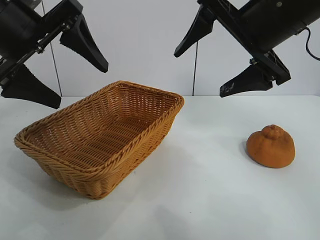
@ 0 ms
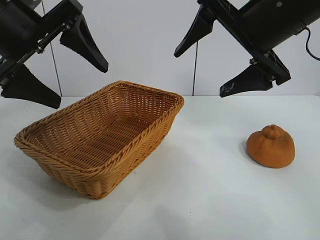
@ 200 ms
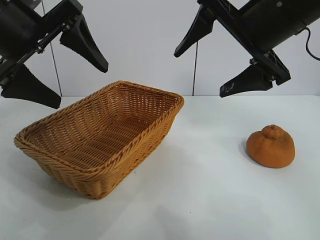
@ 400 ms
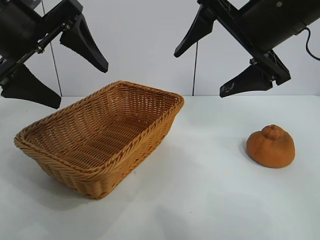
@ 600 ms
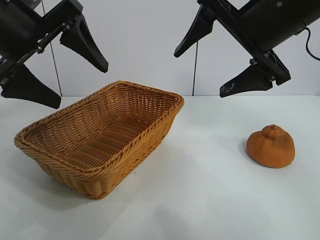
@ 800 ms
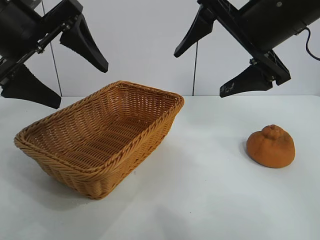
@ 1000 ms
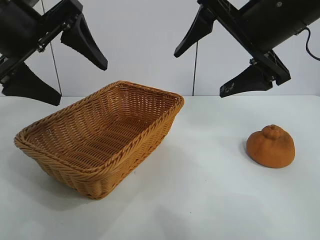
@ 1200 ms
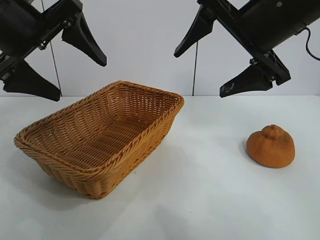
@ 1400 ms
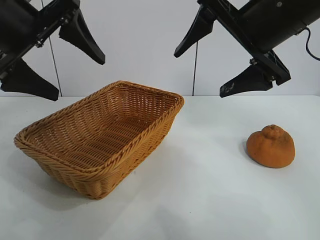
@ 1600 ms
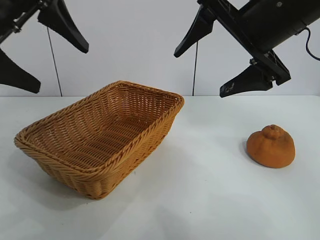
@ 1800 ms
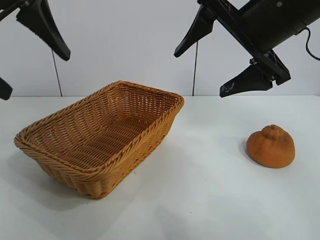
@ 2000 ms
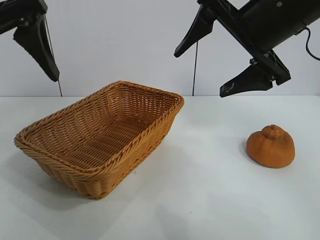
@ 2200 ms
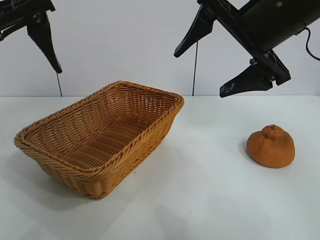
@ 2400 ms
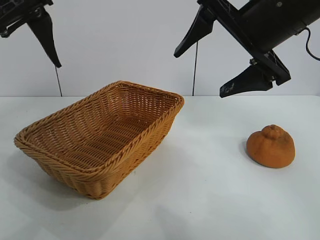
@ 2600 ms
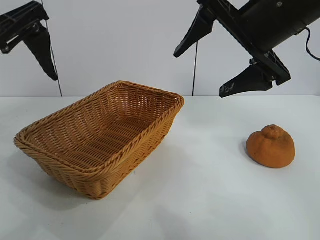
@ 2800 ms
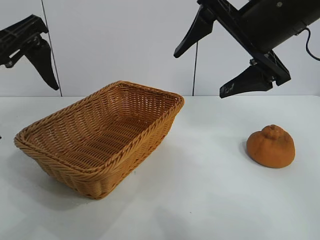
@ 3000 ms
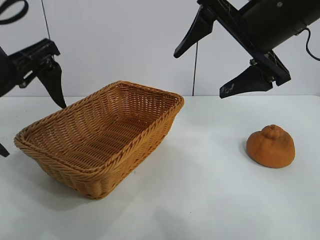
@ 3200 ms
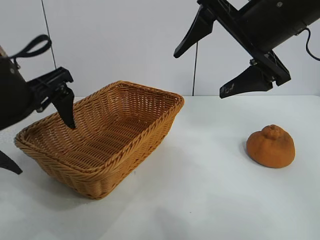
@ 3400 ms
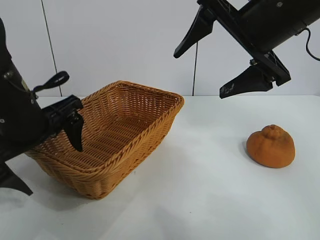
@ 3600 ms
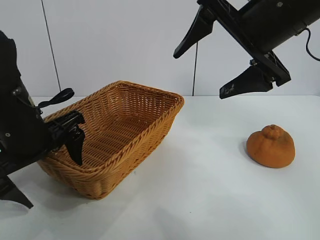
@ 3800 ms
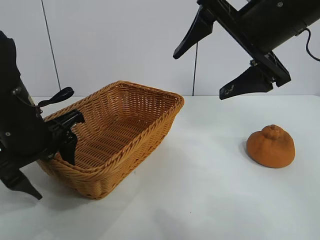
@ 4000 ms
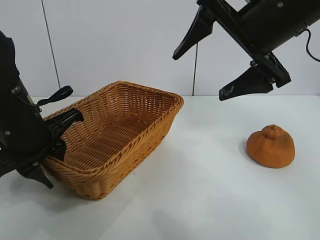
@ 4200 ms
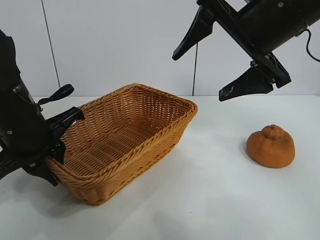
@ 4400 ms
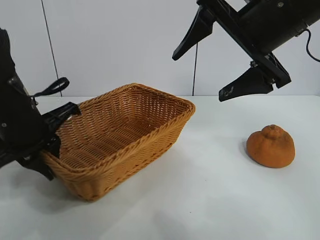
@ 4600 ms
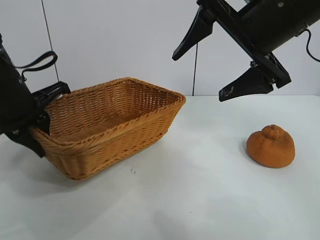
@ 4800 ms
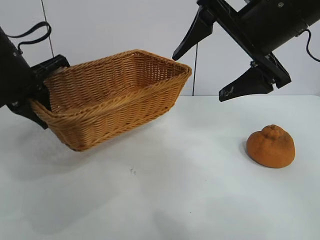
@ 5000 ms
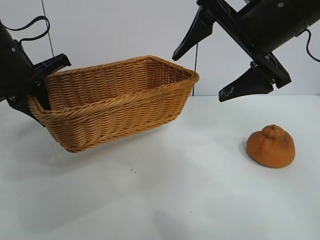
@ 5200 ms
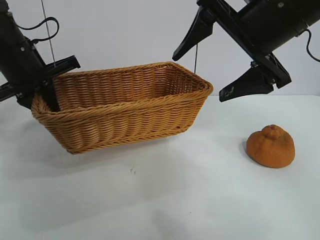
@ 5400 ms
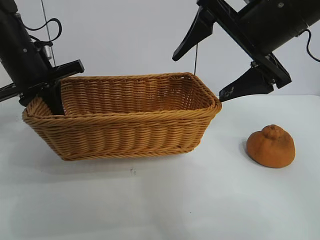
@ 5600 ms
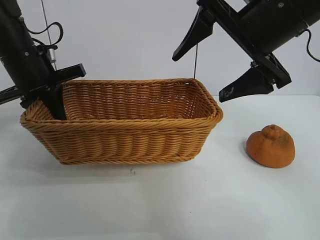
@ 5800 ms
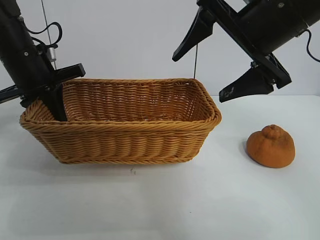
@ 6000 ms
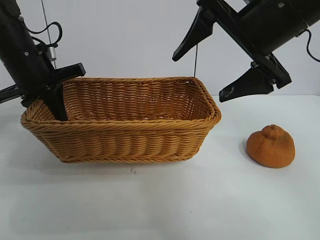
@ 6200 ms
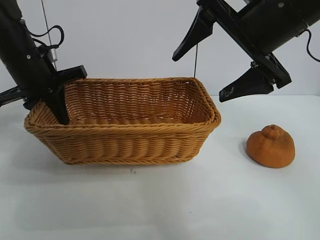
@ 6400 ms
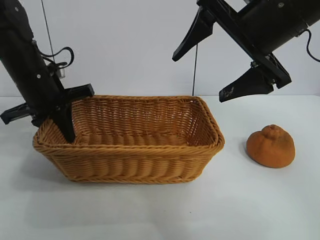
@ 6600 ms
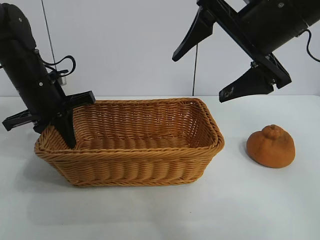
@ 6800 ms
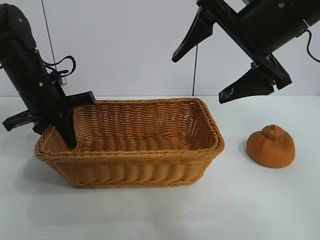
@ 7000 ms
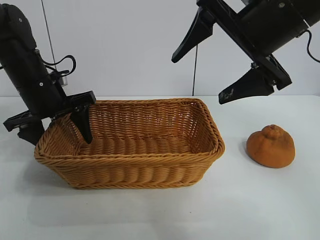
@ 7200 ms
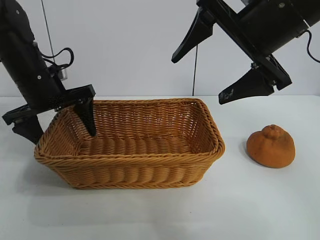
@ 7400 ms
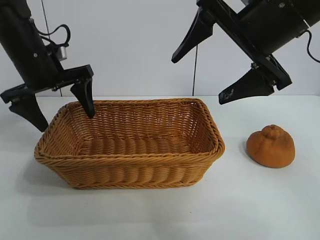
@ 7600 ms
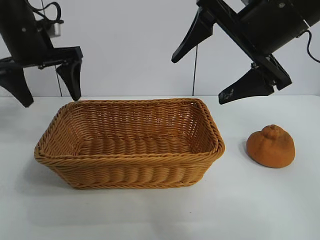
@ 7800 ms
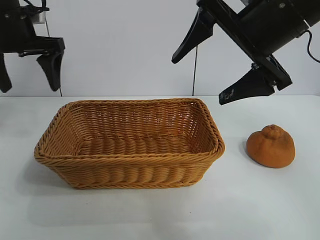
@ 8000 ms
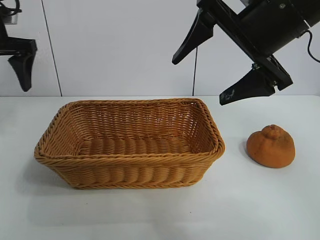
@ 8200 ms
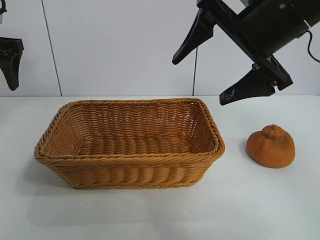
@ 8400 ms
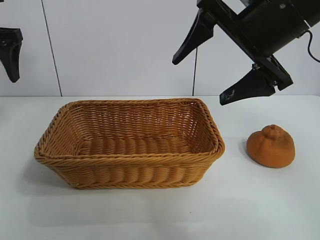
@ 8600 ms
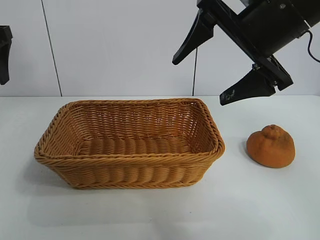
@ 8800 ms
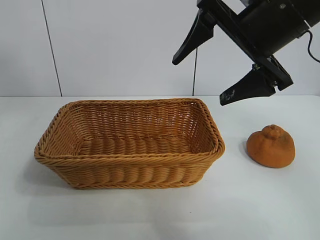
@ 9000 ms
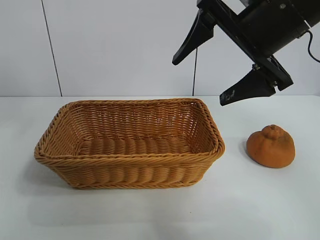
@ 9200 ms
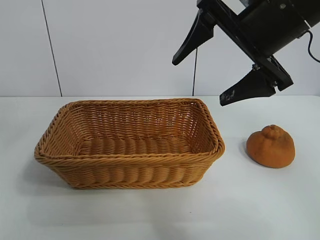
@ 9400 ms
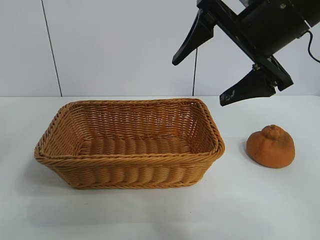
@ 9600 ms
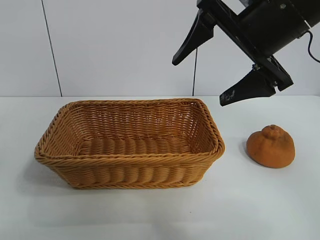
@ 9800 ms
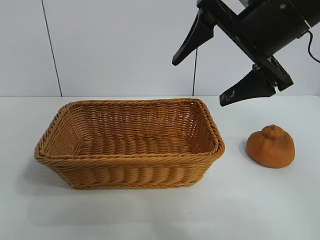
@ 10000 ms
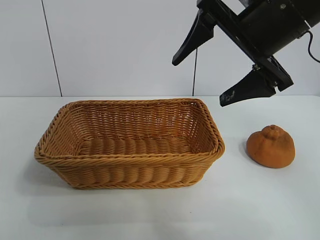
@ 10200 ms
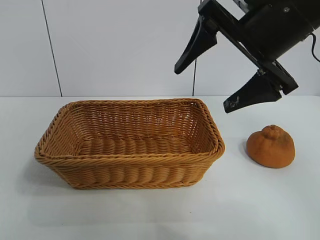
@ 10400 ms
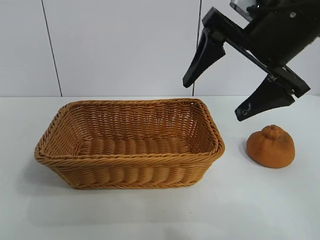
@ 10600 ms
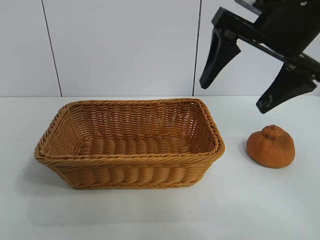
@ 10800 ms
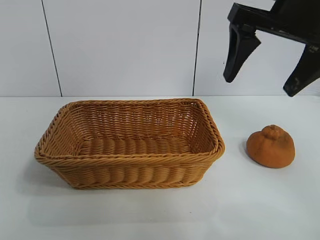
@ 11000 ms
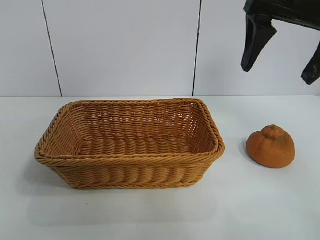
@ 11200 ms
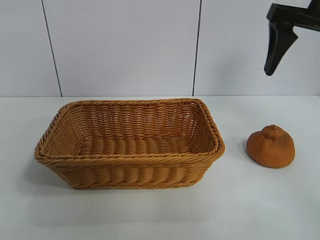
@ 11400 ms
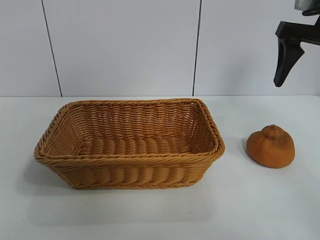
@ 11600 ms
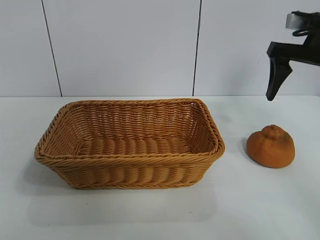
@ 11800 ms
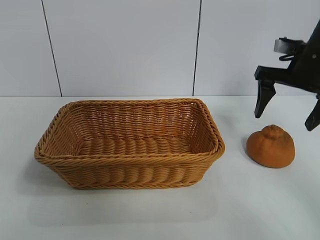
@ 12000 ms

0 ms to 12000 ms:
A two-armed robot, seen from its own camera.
Task of the whole recording: pick up the orange and put it into the basket.
Step, 1200 ms to 4200 ms: Grasp the basket with left gripper.
Step, 4400 ms to 7200 ms: Place the basket in the center of view with left gripper.

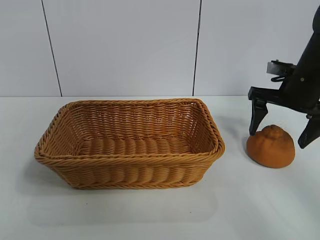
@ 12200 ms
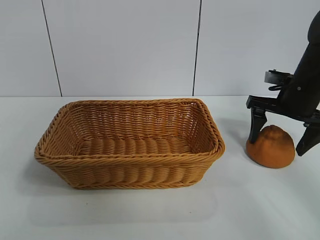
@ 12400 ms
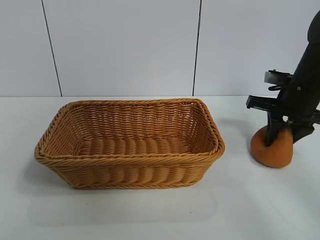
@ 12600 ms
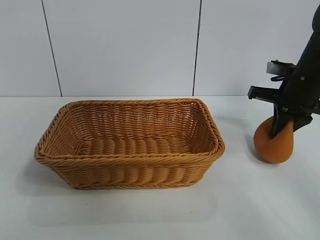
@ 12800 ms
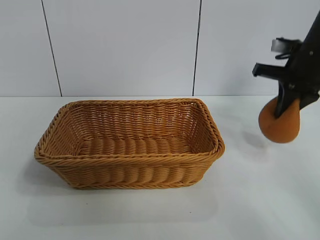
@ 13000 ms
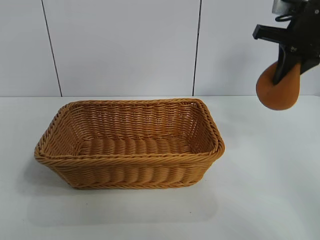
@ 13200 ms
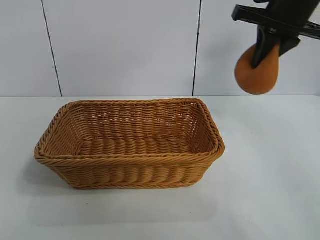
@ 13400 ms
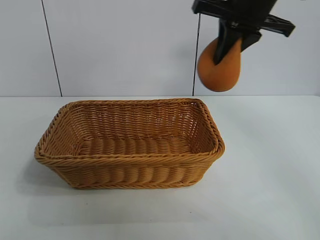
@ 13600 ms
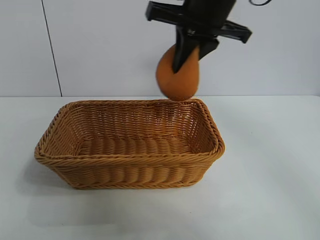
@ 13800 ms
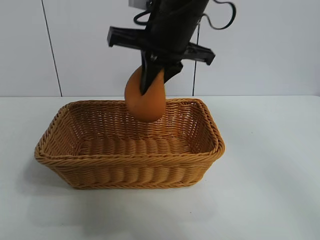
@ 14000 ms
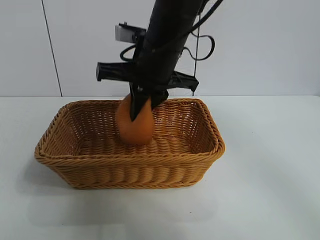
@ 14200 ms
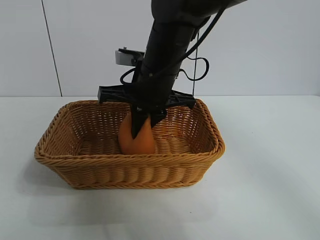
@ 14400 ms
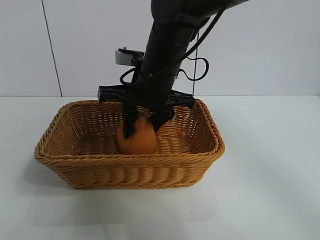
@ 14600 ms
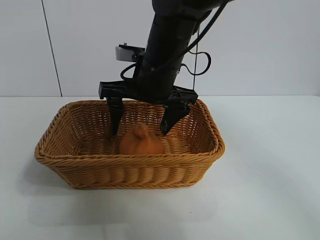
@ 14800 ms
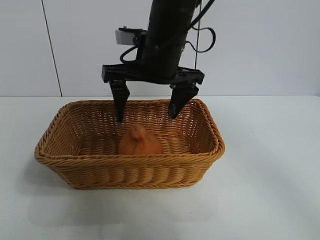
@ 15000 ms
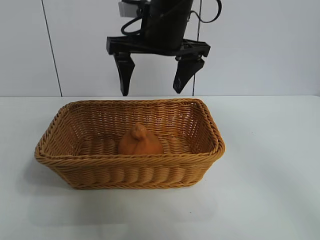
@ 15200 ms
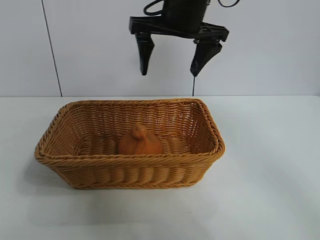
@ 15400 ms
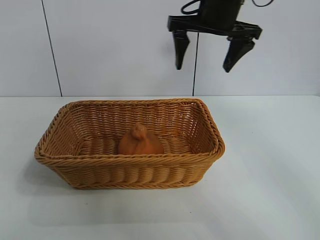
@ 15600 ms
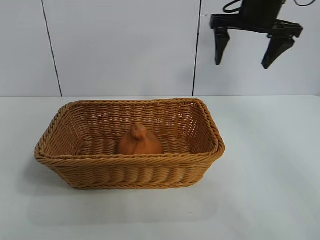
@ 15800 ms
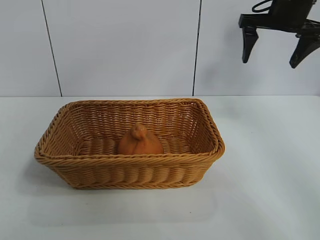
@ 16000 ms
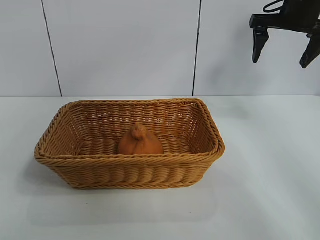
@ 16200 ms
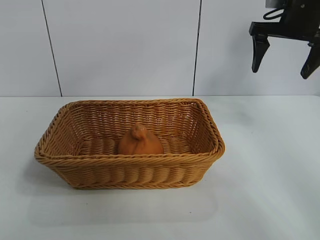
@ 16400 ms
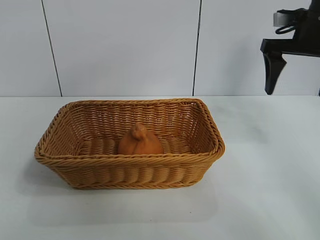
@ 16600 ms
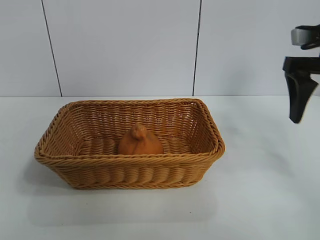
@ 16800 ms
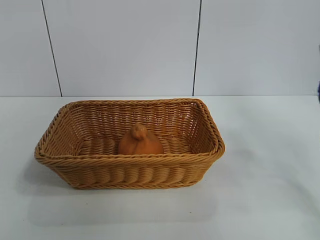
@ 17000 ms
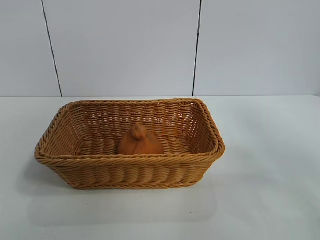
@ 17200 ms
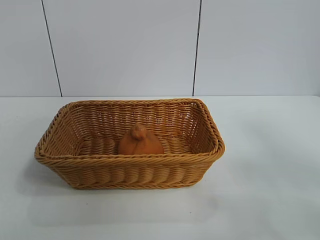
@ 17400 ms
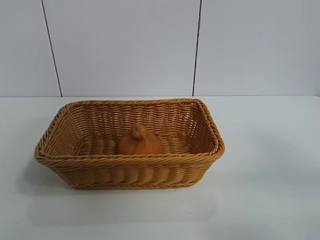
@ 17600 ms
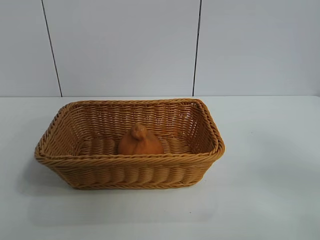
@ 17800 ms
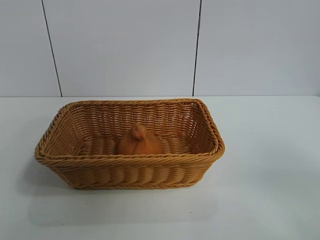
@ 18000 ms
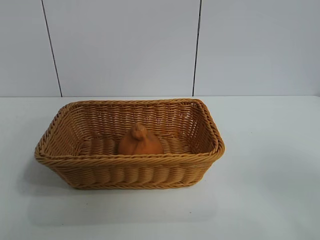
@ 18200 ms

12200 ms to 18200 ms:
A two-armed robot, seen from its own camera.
Task of the whole recording: pick up the orange and put it into the basket.
Step, 13000 ms to 14800 ms: Place the orange in the basket with right gripper.

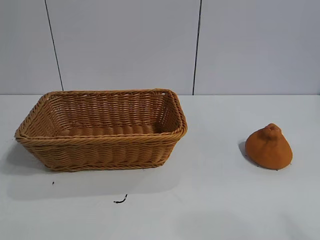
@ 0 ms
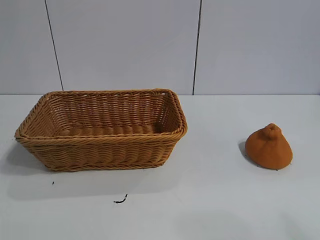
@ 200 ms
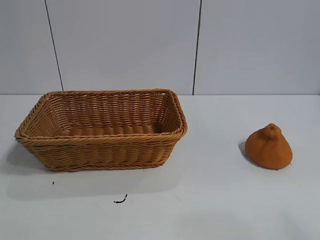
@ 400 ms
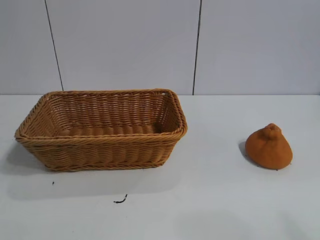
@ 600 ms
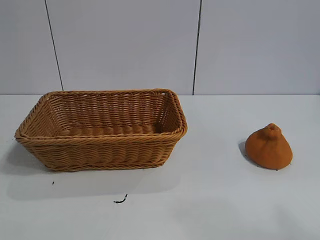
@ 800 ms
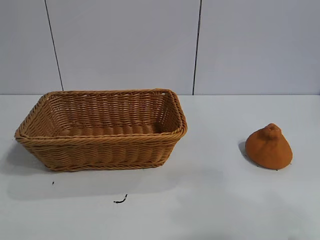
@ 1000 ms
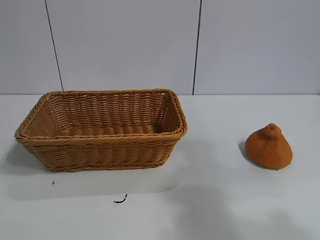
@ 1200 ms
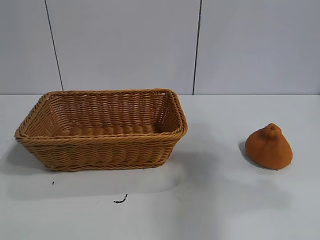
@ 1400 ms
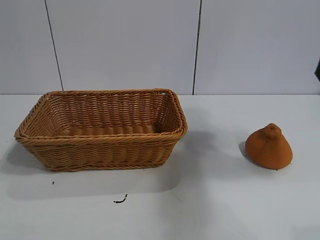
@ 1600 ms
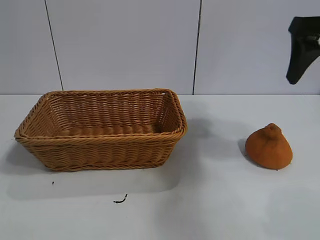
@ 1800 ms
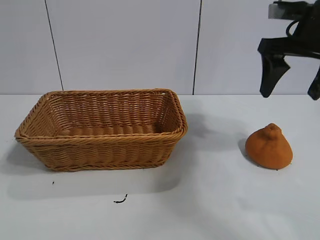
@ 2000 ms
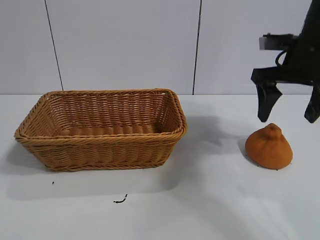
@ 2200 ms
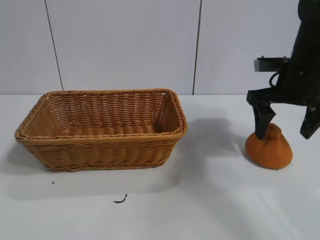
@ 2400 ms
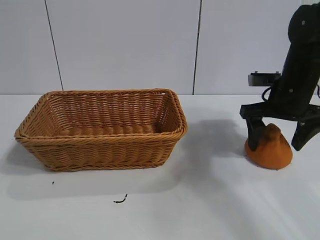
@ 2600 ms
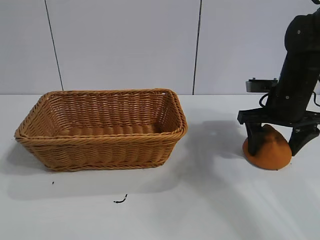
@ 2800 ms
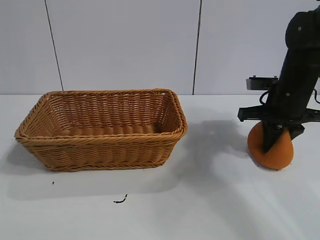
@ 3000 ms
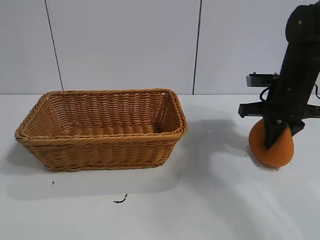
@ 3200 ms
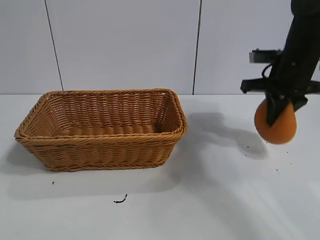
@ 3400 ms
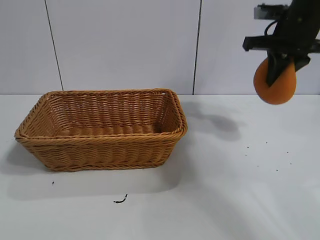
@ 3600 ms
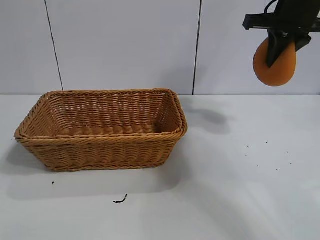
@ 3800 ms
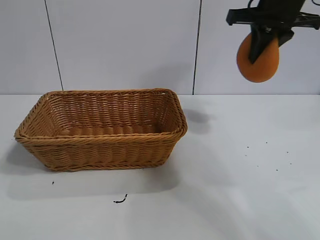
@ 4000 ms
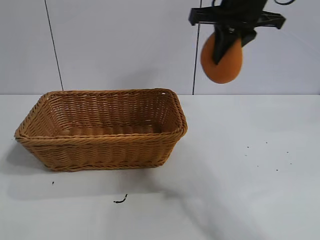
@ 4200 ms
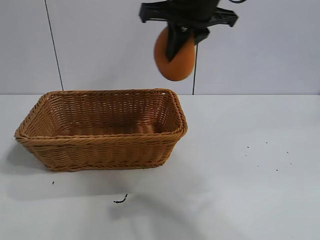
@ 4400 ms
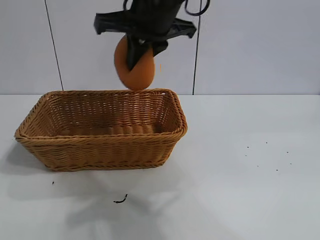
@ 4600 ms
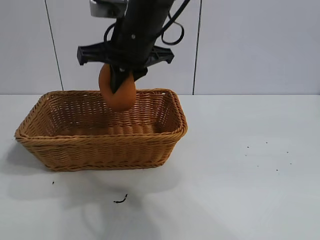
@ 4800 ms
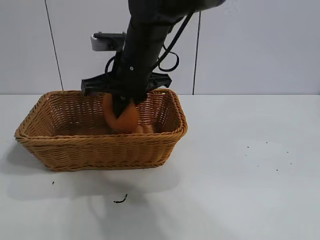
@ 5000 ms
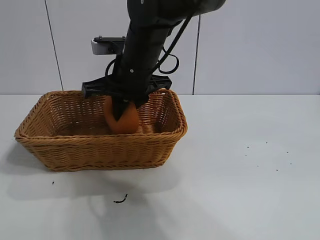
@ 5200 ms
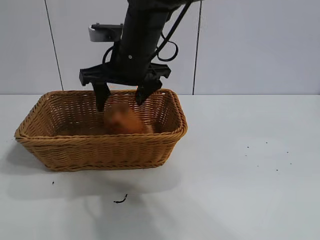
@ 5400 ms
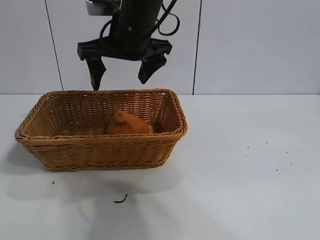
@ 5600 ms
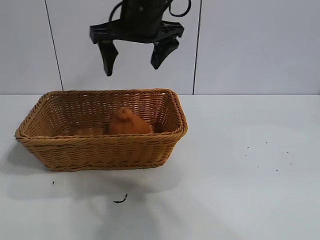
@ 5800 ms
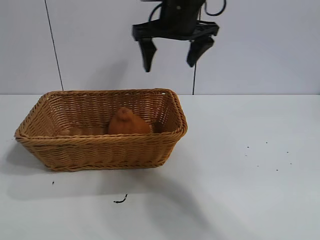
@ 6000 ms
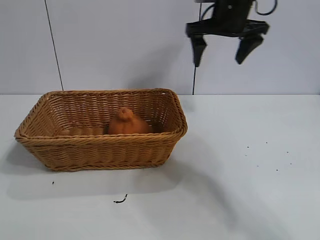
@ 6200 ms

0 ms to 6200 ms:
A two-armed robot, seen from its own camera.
Task of the whole recording: pick up the orange and put it into the basket.
Step, 600 ms to 3000 ms: Grasp the orange with right gripper.
Step, 3400 ms to 5400 ms: Place the orange in the basket with right gripper.
